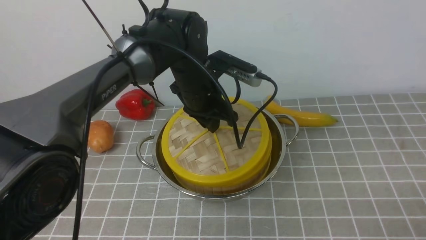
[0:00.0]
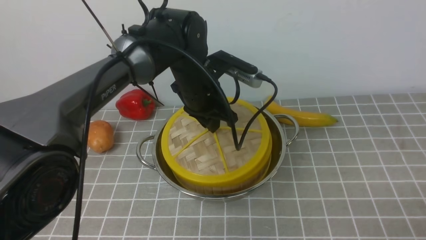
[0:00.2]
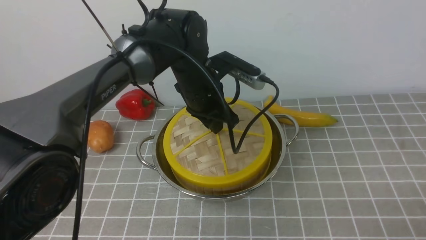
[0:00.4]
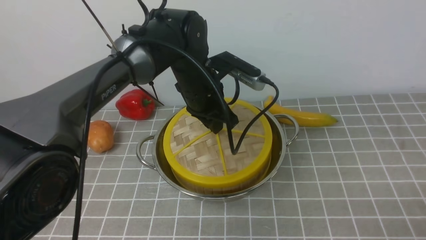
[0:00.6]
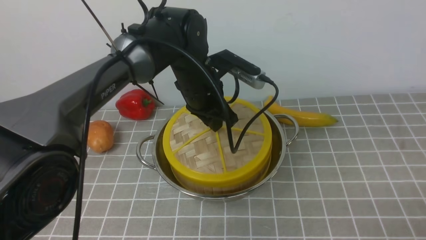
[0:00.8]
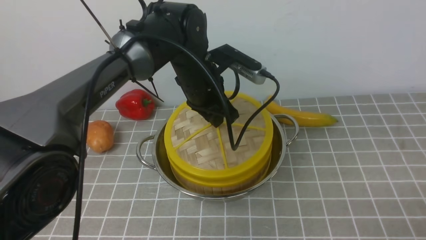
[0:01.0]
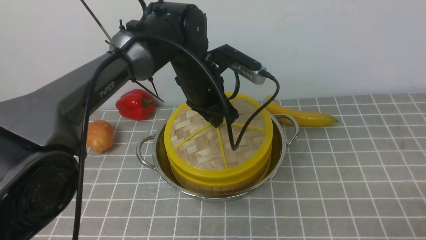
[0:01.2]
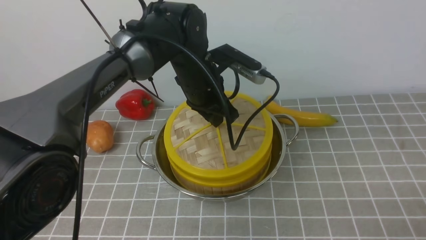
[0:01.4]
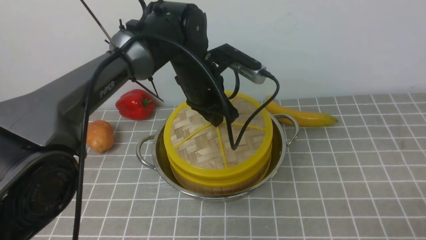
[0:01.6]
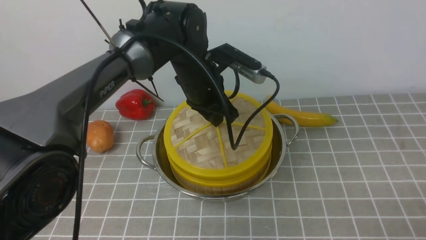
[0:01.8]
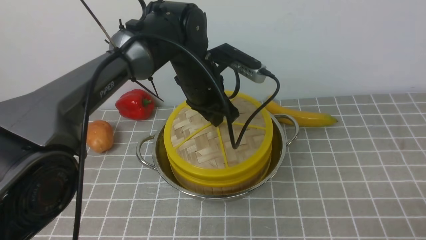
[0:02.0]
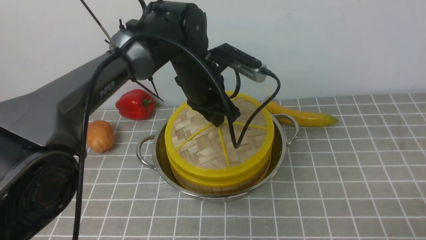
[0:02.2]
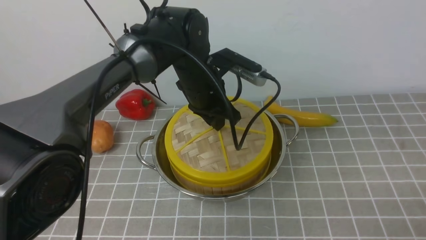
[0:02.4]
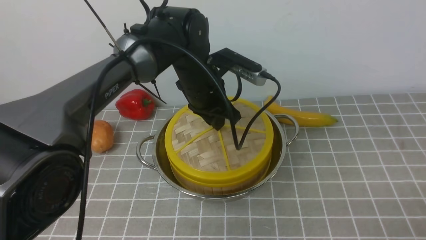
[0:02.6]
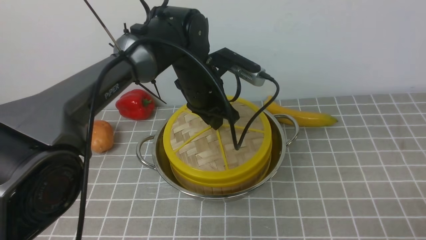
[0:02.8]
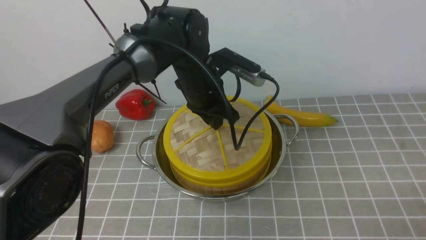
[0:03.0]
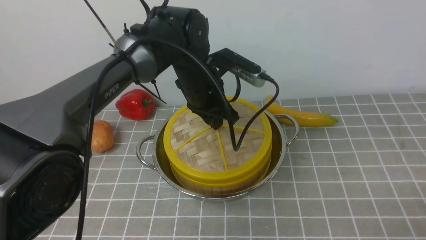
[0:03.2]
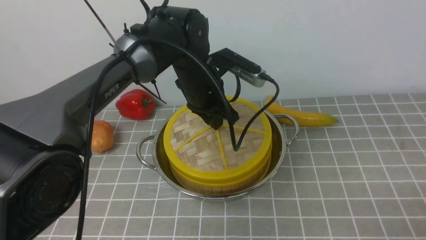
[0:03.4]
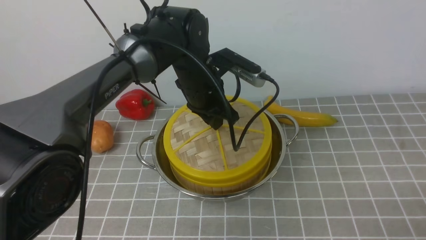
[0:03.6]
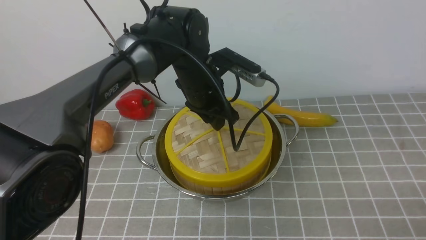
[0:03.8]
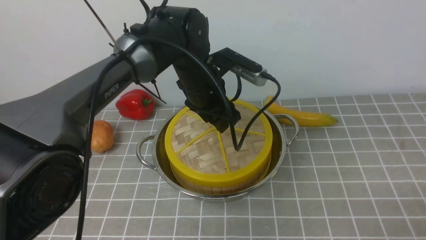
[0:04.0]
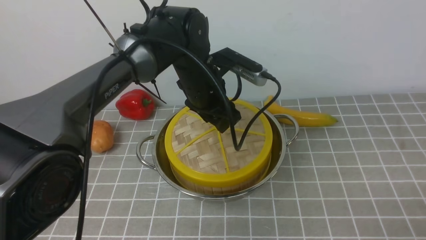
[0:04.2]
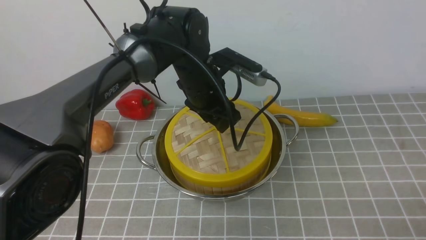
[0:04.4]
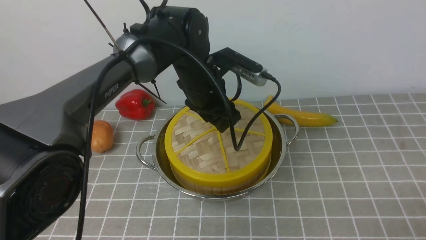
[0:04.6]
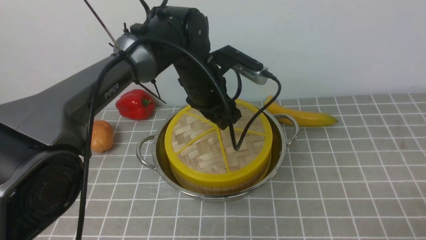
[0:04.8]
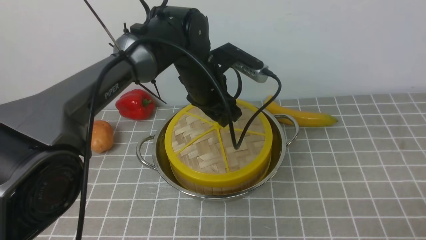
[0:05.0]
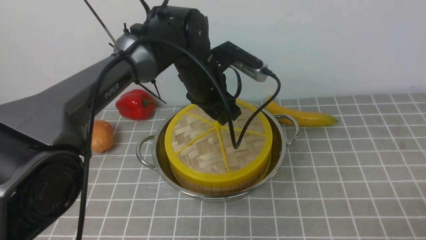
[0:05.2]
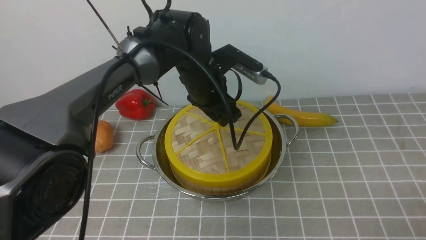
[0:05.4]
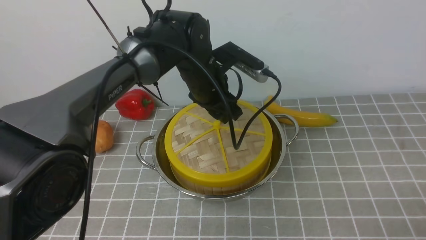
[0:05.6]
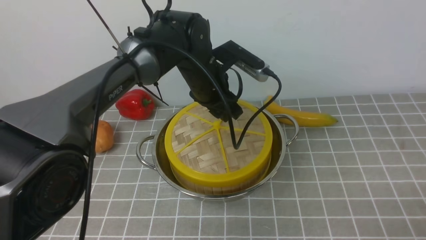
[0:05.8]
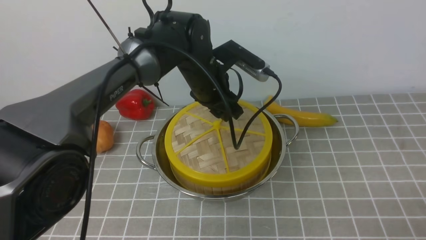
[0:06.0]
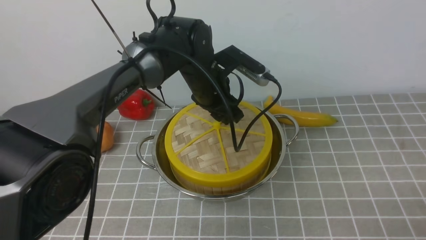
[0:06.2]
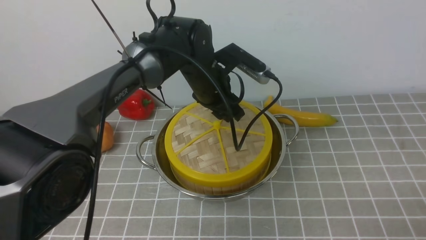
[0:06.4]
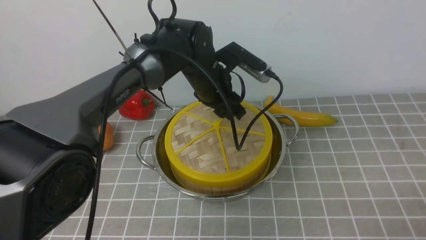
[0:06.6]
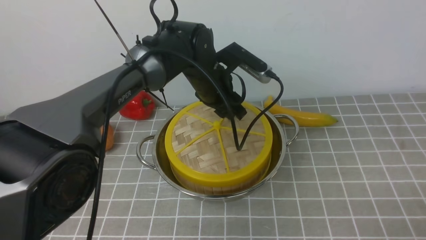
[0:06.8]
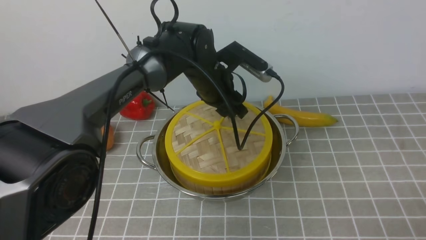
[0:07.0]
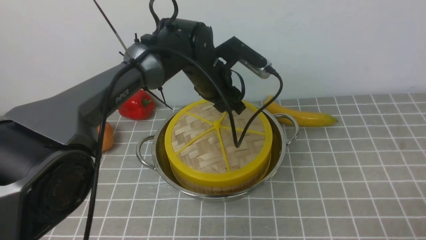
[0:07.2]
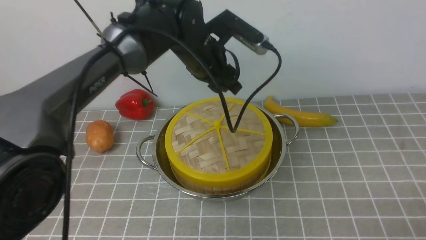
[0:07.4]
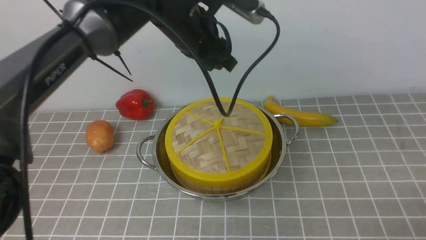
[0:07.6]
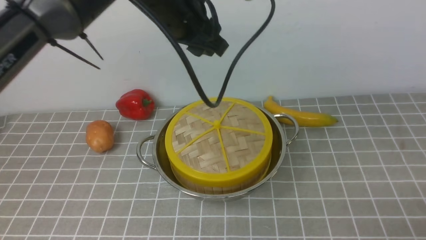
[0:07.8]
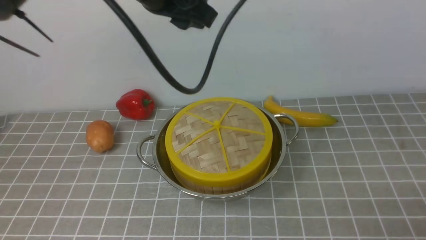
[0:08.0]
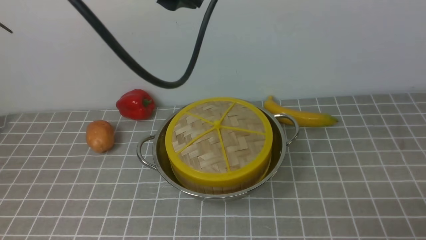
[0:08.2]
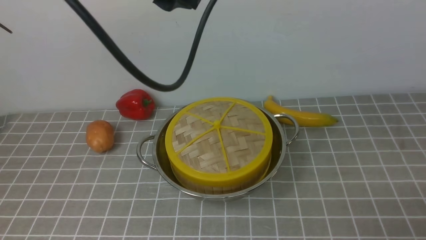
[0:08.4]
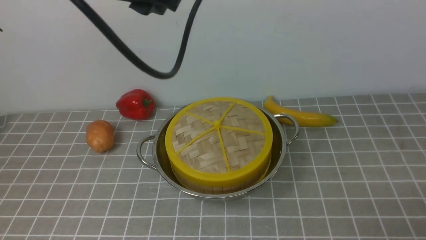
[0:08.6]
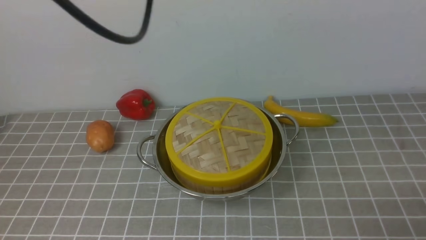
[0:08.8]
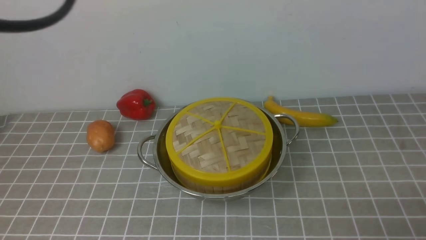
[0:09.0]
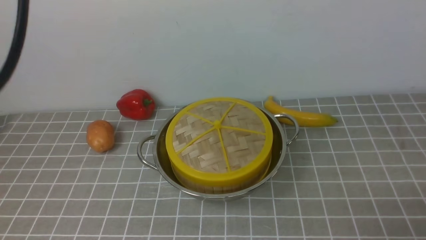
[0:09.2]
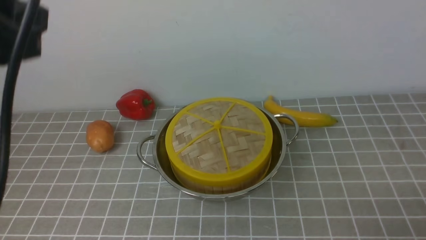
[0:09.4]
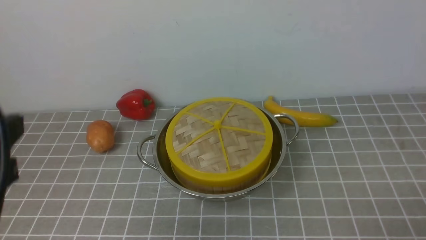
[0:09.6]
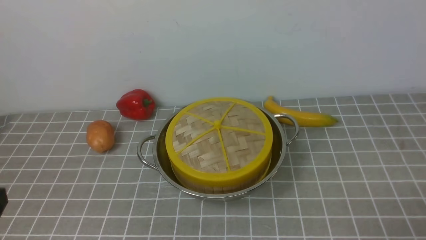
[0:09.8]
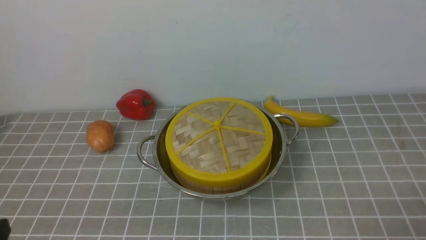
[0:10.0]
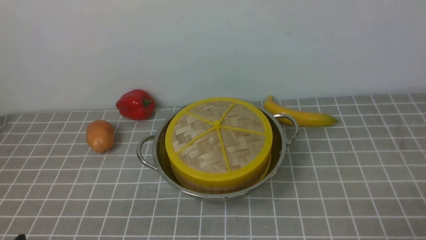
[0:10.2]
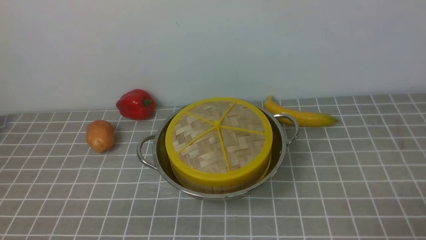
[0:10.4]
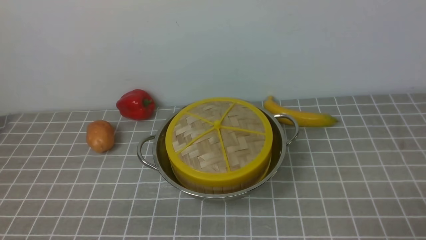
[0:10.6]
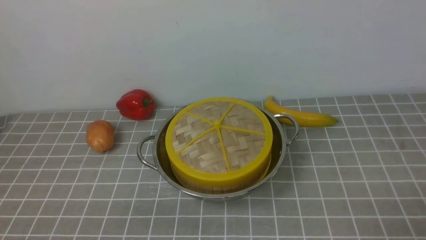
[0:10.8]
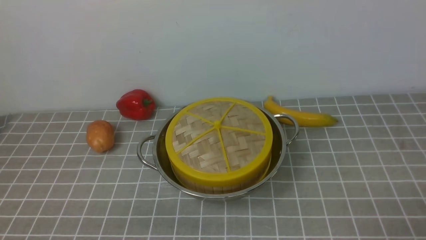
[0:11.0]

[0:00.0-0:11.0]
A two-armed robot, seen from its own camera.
Task of the whole recording: place the steamer in the pot on the grey tablecloth, and put the lid on the steamer.
Step, 0:00.0 to 0:07.2: use the left arm to place the steamer lid on the steamer.
0:00.0 to 0:01.6: The grippers make only small movements.
0:01.6 to 0:03.2: Neither gripper changes place.
0:03.2 to 0:04.8: The left gripper opens up.
0:04.8 to 0:06.2: The grippers move only a little.
0:06.2 to 0:07.8: The left gripper shifts about 15 cm upward.
0:07.8 to 0:09.4: The left gripper shifts roughly 30 cm backward, to the left and upward.
0:09.4 to 0:11.0: The left gripper heads downward and backward, covering roughly 30 cm.

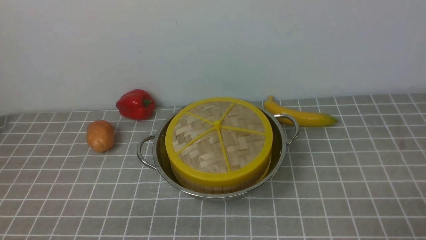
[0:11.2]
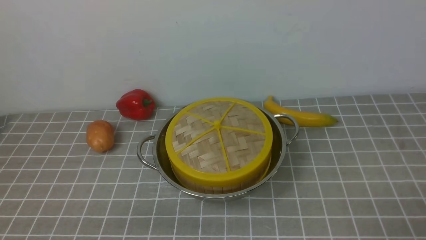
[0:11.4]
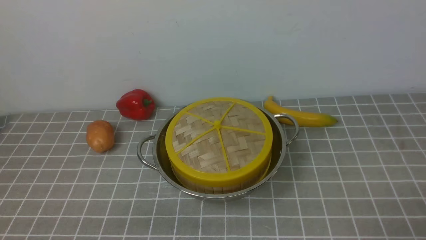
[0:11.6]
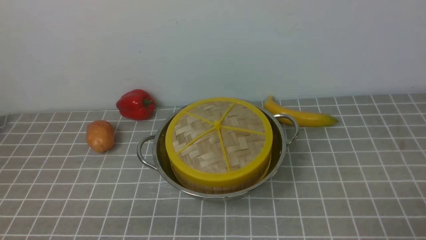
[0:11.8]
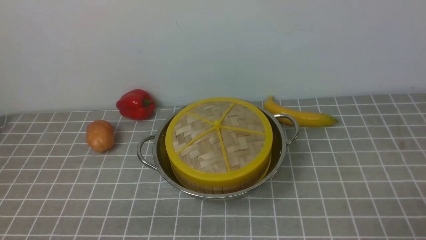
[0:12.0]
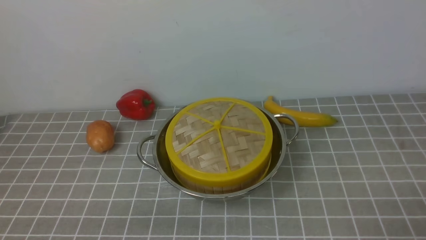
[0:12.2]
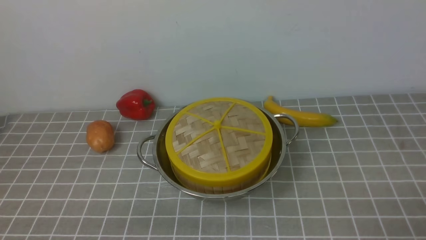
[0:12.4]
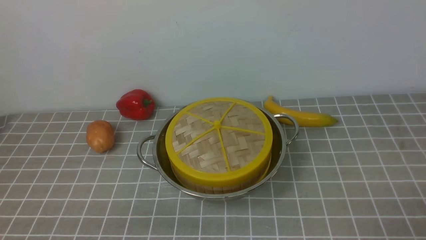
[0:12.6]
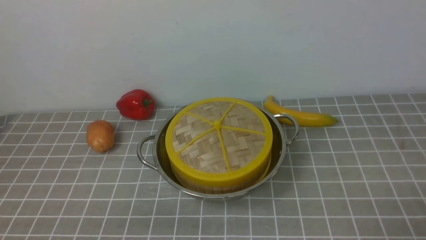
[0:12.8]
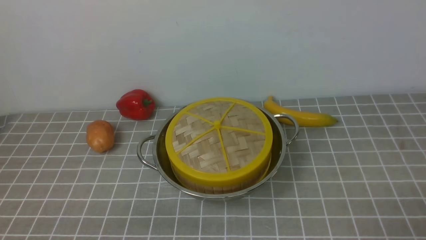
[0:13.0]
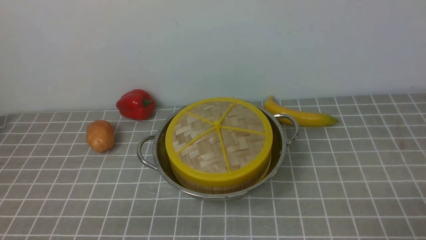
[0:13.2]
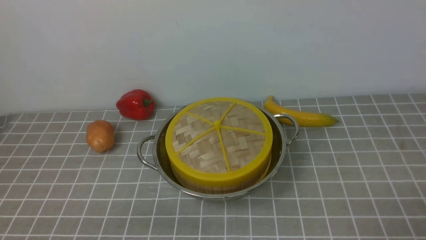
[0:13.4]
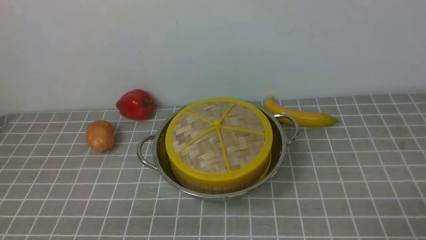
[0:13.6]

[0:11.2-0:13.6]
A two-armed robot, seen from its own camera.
Task of the whole recording: place the steamer in the pot on the grey tablecloth, and put the lid on the steamer.
0:11.2 to 0:13.6: Neither gripper changes place.

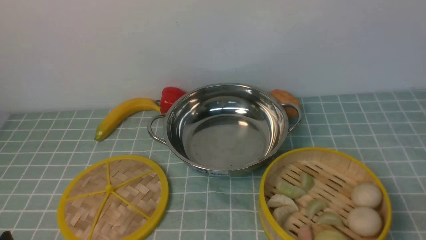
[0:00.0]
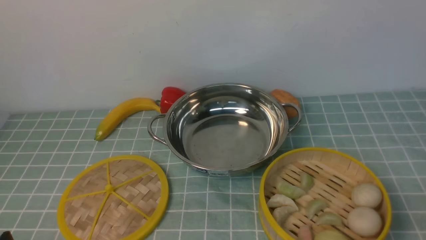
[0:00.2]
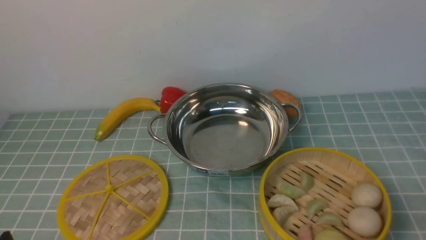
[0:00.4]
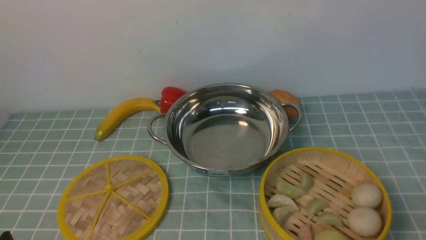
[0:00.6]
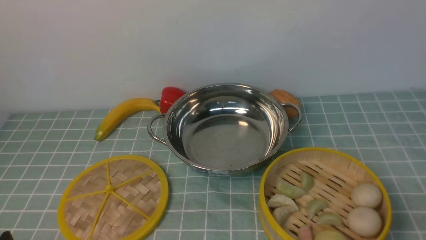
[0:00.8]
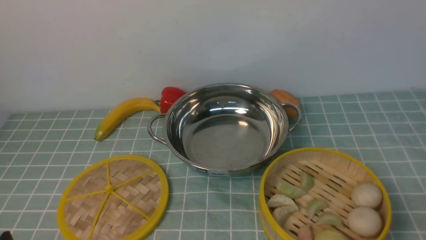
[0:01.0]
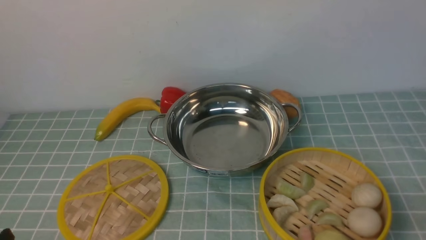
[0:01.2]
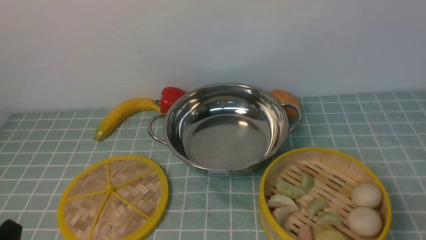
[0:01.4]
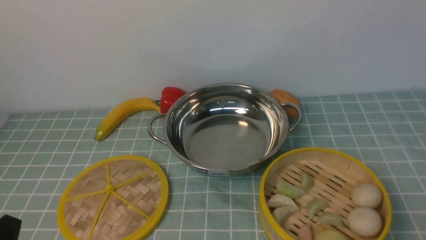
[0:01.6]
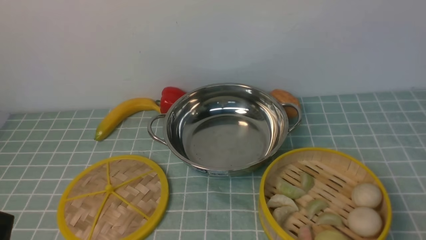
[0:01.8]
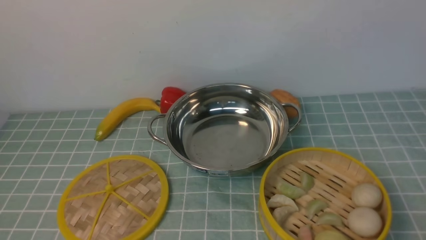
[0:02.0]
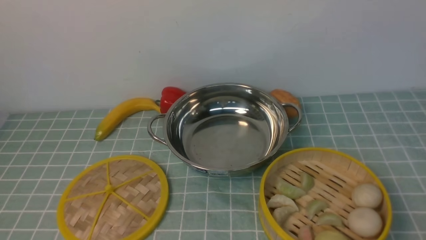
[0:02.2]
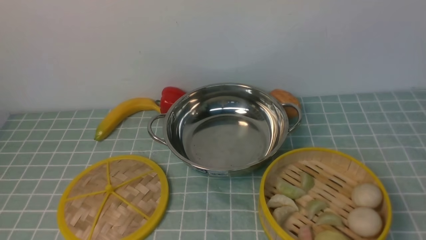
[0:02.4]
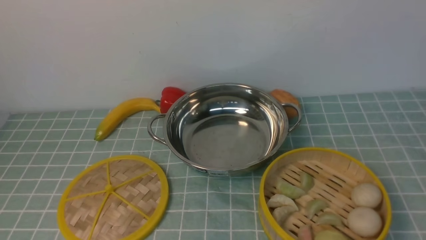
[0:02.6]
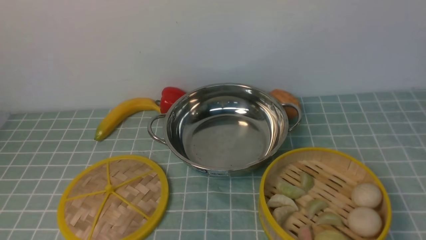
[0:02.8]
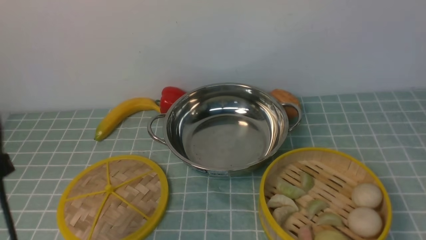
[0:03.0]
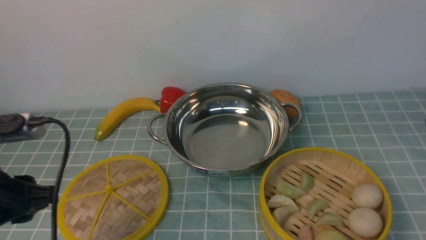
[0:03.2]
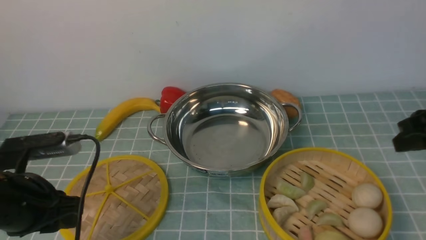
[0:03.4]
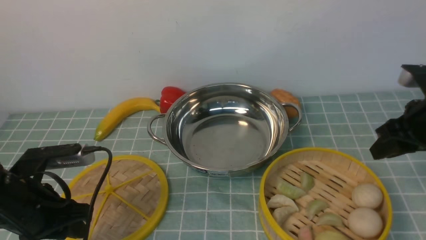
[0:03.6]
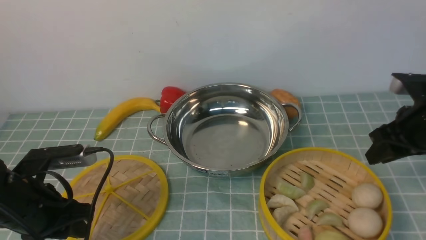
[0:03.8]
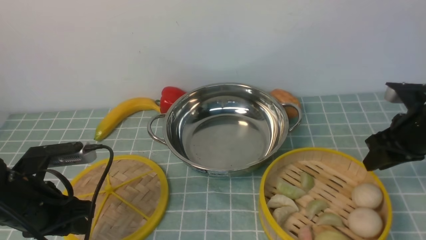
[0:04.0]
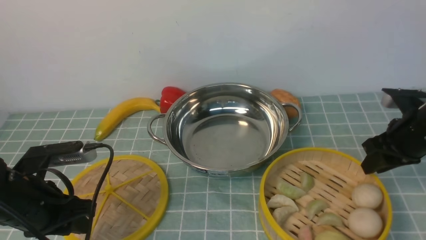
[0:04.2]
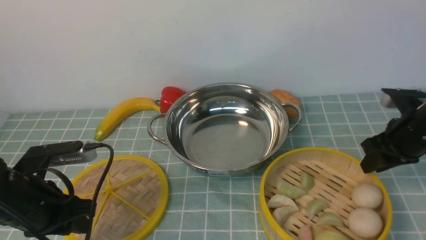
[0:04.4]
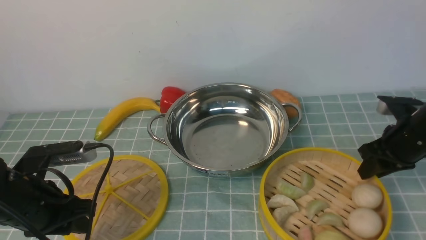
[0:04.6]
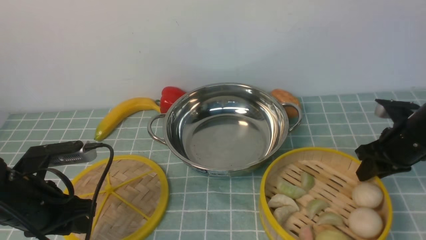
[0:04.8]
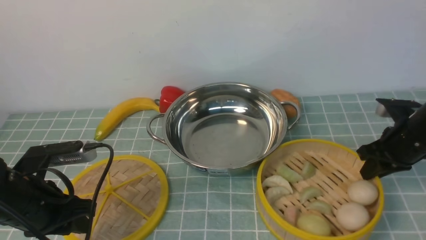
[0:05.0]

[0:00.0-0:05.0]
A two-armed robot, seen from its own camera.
Task of the whole recording: place the steamer in the pot on the blue tablecloth, and put the lid on the steamer.
0:01.6 to 0:03.4: The grippers both shift forward and upward by about 20 cm.
0:03.4 to 0:05.0: The right gripper moves downward and forward, roughly 15 cm; the left gripper ends up about 5 cm from where it was.
